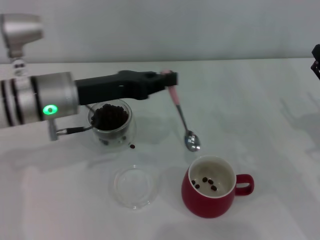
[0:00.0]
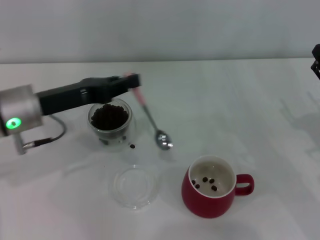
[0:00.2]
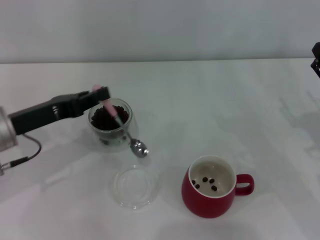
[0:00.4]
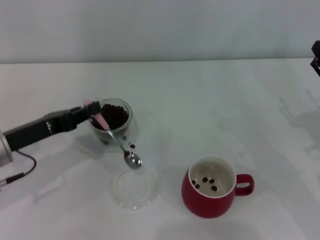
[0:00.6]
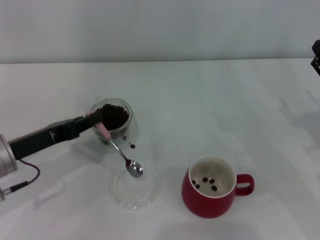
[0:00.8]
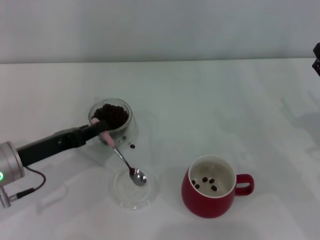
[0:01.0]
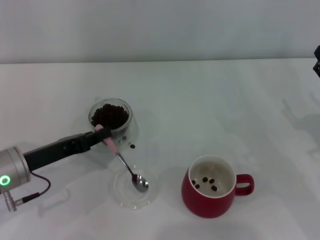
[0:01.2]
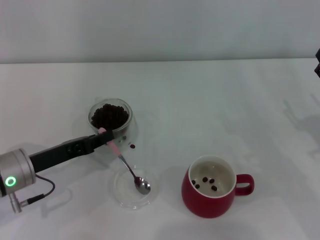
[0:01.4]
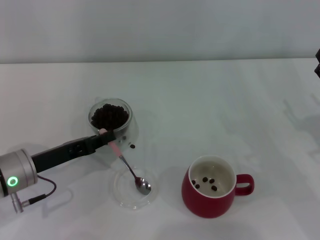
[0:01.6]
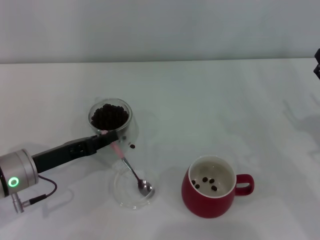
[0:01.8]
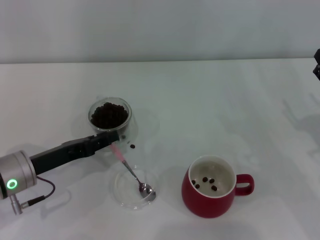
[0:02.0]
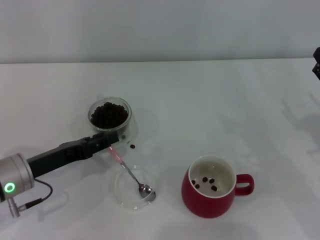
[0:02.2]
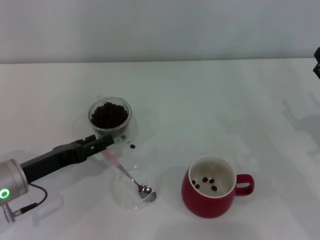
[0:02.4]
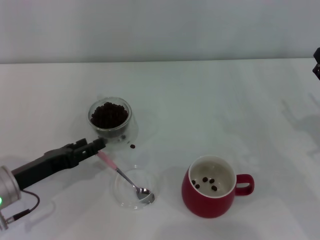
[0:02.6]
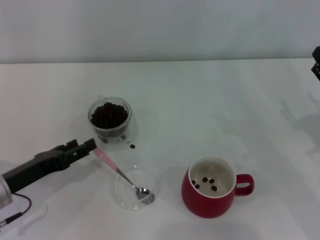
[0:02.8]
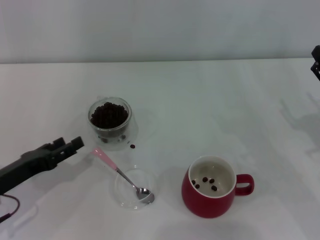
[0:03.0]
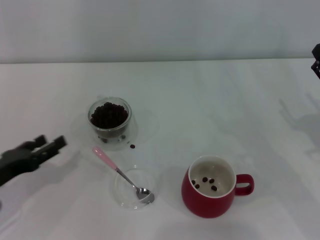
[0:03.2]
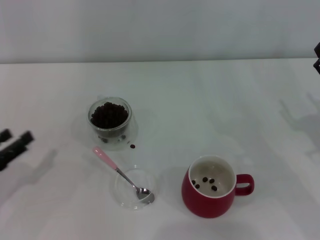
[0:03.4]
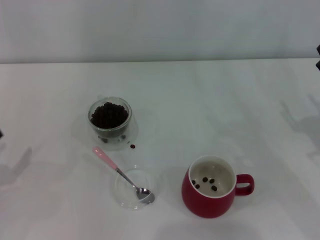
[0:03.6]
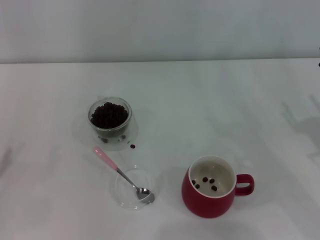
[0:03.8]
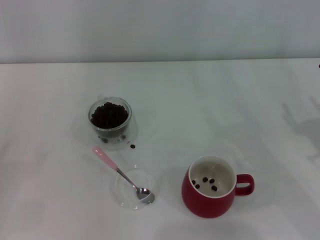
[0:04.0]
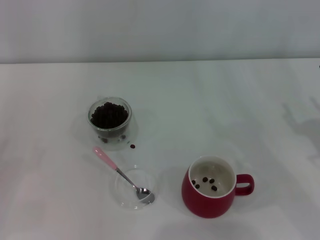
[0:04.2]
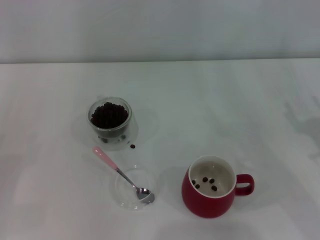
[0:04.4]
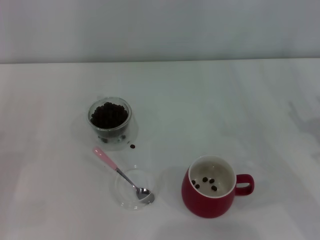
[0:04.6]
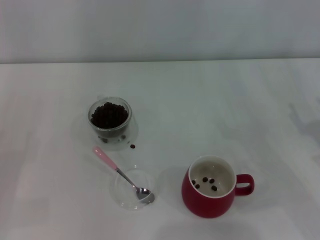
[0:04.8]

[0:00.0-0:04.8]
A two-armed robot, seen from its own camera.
Task of the whole recording: Use a pink spoon to take out the coffee beans from the glass and pour them into the red cup.
0:00.0 to 0:01.6: The left gripper travels downward, to the left and backward by some 15 cm.
0:01.6 to 0:03.2: The left gripper is displaced to the left by some 5 cm, and opens up.
0:03.2 to 0:04.8: The left gripper heads to the left, covering about 10 cm.

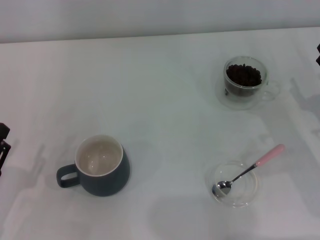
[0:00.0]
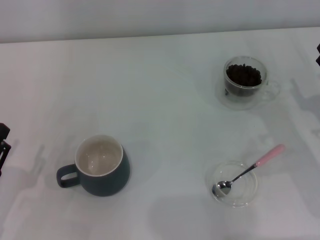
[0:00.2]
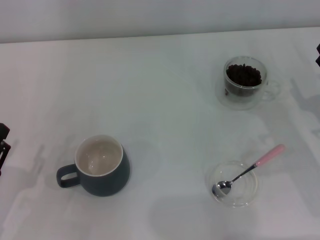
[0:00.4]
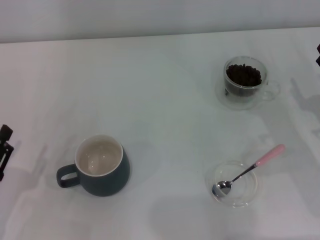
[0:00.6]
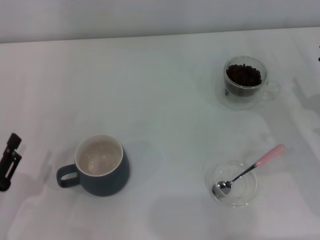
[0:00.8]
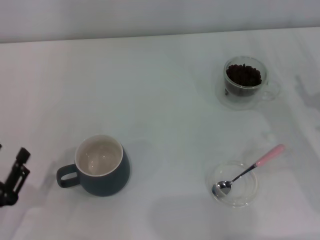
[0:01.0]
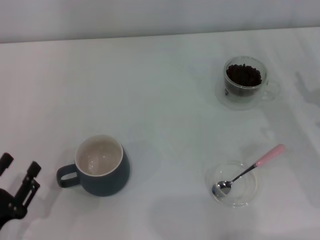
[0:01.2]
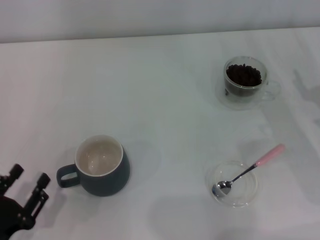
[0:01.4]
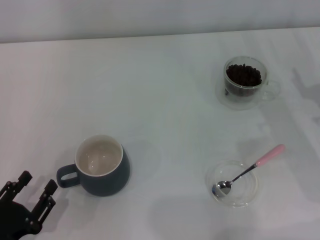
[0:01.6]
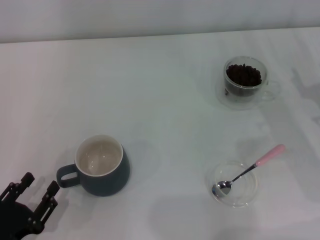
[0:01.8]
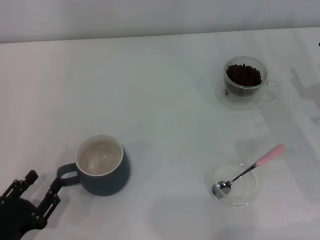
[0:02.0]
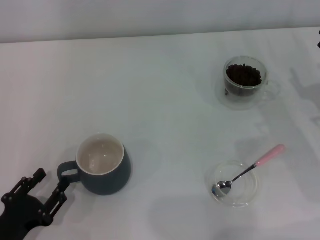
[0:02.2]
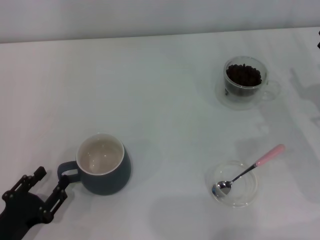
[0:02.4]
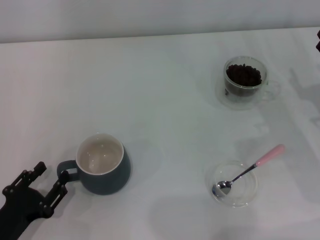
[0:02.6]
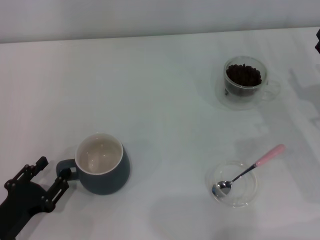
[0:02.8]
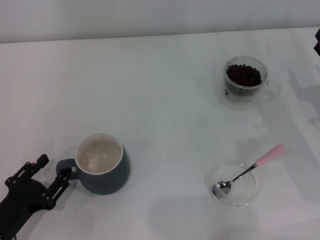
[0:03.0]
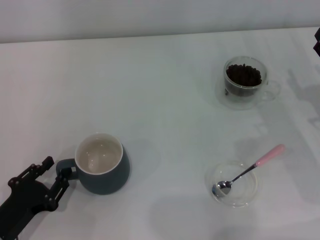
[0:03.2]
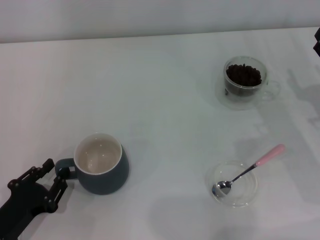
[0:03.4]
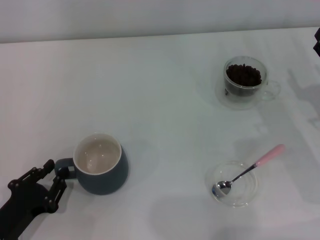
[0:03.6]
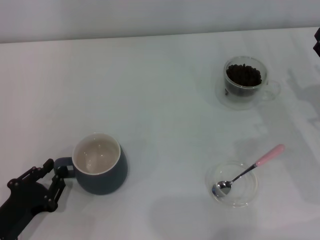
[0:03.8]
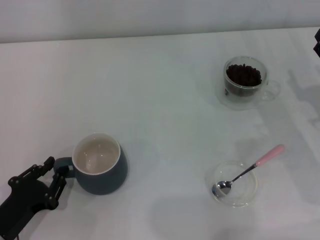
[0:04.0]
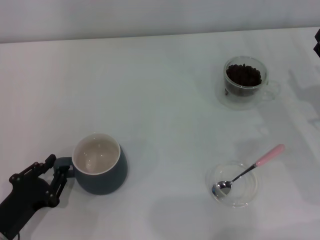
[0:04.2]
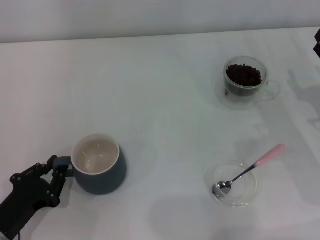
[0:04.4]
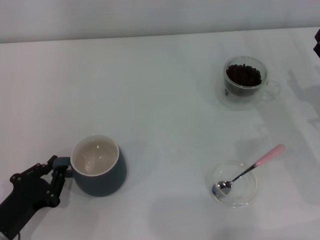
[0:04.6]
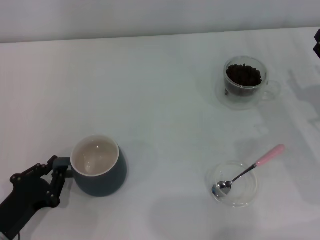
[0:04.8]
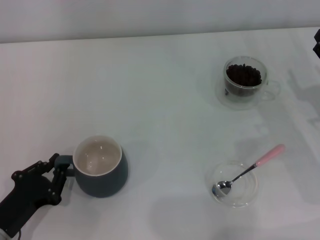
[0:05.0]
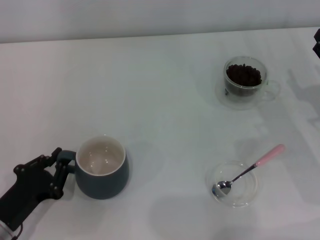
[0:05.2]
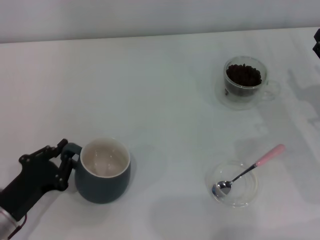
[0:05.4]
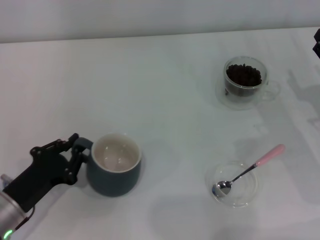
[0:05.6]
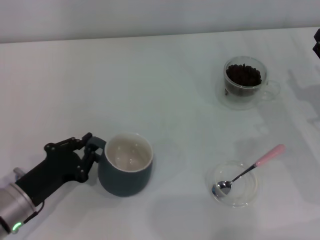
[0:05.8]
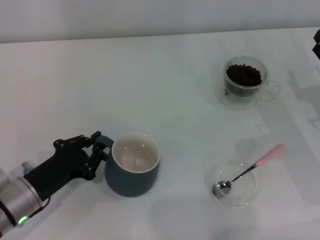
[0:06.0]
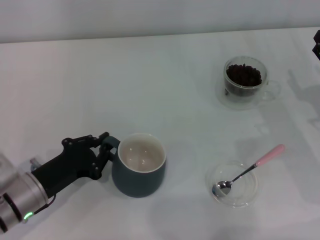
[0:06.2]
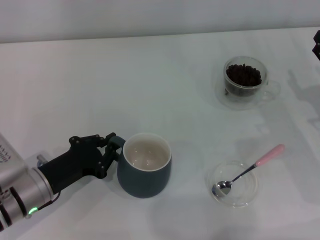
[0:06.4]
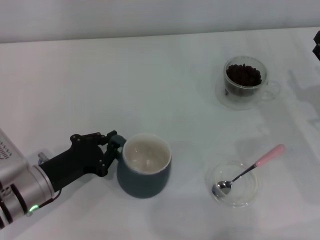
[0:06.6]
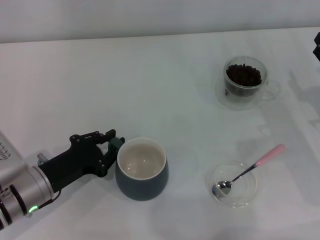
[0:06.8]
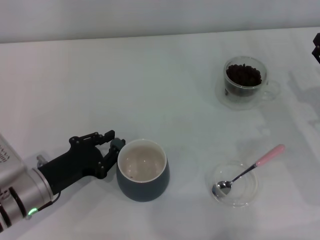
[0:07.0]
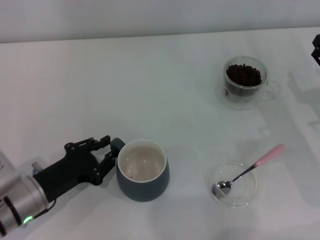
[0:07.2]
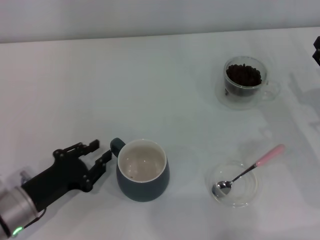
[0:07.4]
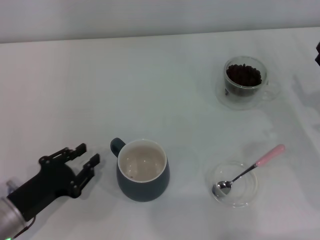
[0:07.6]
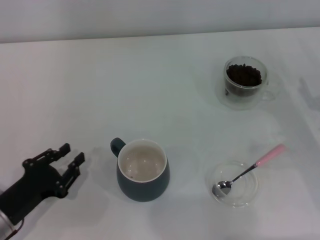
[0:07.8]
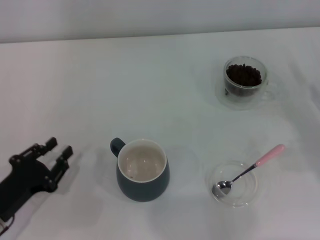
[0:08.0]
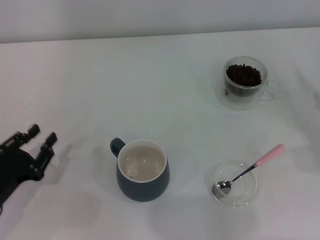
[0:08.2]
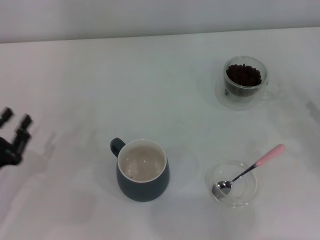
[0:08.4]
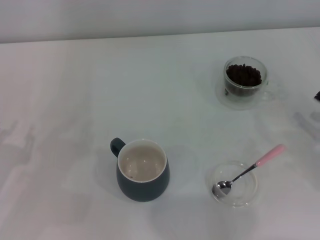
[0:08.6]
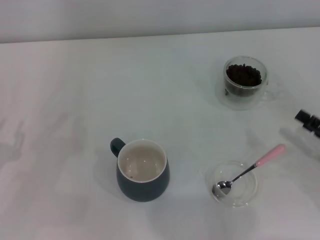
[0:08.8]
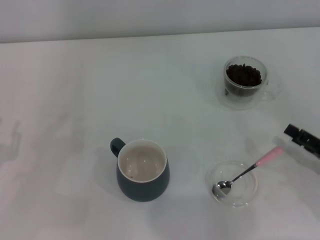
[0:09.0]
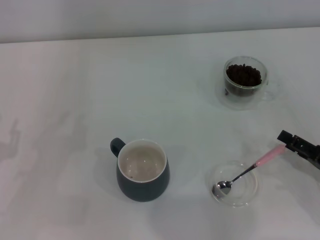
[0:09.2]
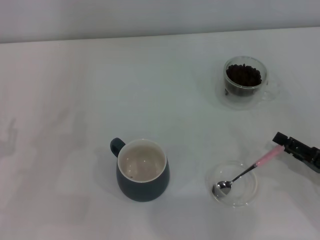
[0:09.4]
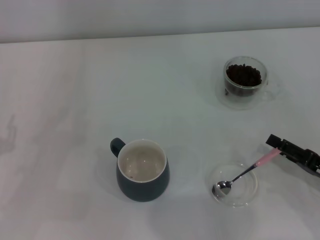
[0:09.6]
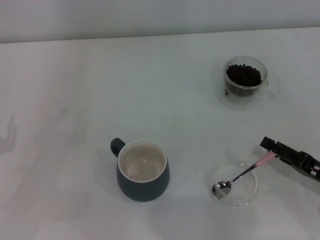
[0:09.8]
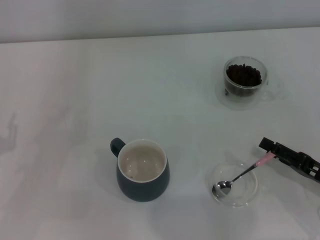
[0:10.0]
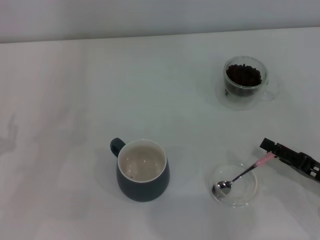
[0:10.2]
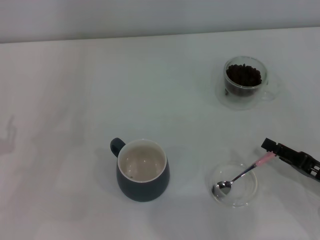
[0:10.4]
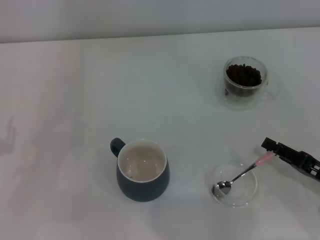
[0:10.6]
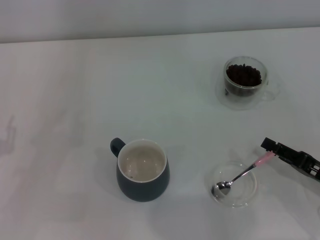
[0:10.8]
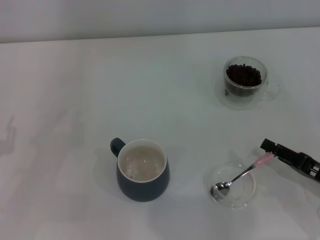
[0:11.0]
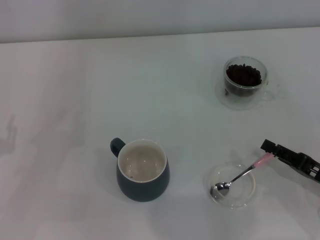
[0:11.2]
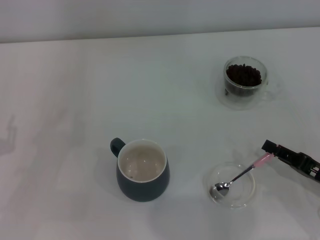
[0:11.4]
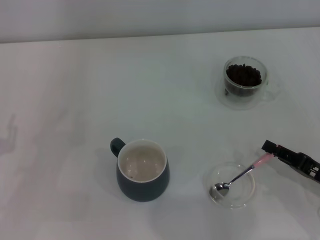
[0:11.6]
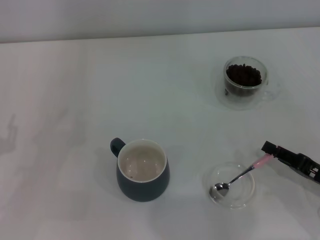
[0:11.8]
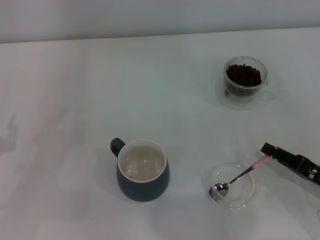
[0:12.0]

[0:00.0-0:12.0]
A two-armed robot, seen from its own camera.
Task of the whole recording: Use a pink spoon to take out the coffee beans from the glass and pour them into the gray cup.
Step, 0:00.0 to 0:07.4: Move the cup to the center of view with the left gripper.
0:00.0 to 0:01.6: The left gripper moves approximately 5 cm.
0:01.6 to 0:03.0: The grippers make only small movements.
0:03.0 to 0:04.4: The left gripper closes up.
0:04.4 to 0:06.0: The left gripper moves forward, approximately 5 cm.
0:06.0 to 0:07.6: The left gripper opens.
0:07.6 to 0:09.0: The left gripper is displaced to the left by some 10 cm, while the right gripper moves backward, some 10 cm.
0:09.0 to 0:10.4: The grippers make only small movements.
0:10.4 to 0:12.0: The right gripper closes its fingers.

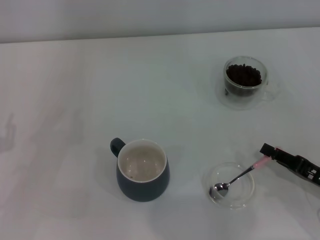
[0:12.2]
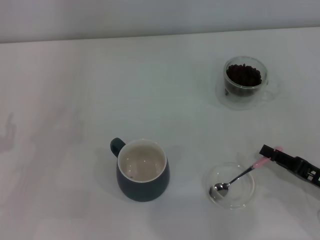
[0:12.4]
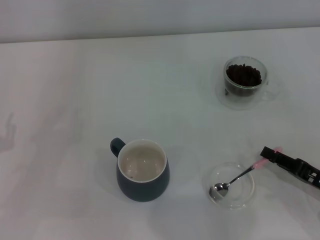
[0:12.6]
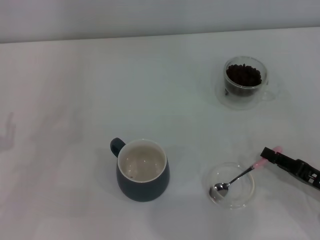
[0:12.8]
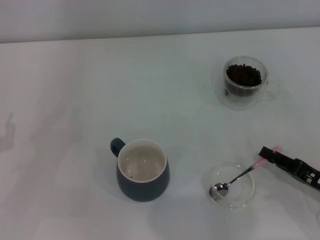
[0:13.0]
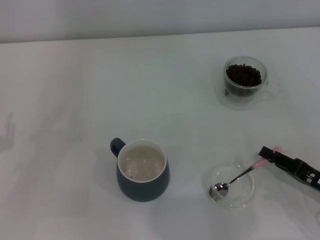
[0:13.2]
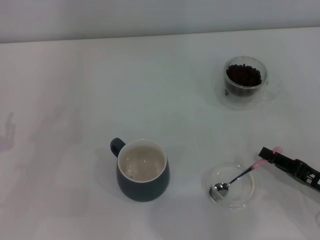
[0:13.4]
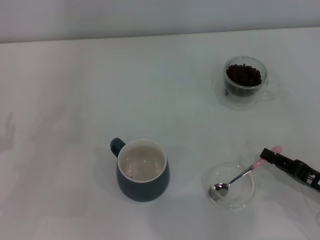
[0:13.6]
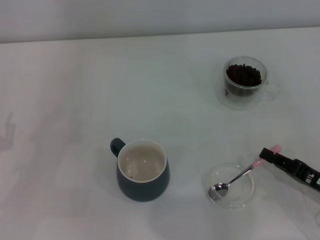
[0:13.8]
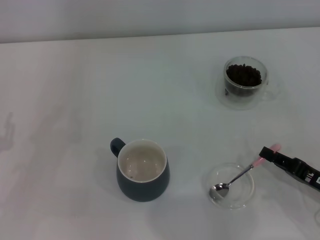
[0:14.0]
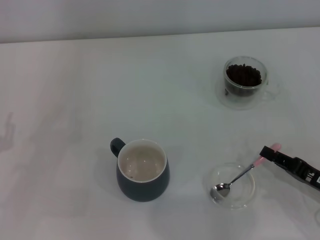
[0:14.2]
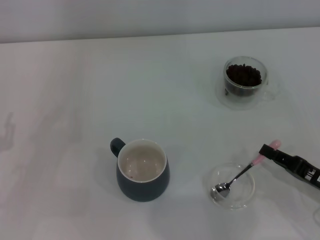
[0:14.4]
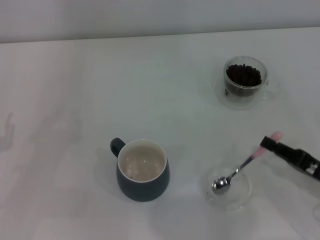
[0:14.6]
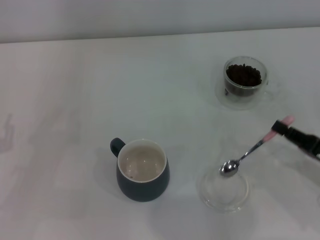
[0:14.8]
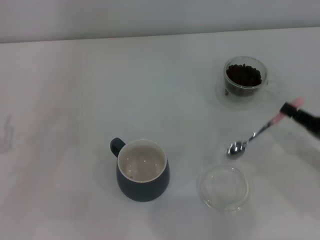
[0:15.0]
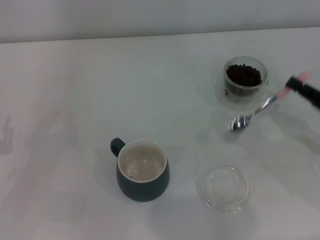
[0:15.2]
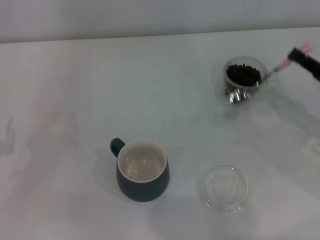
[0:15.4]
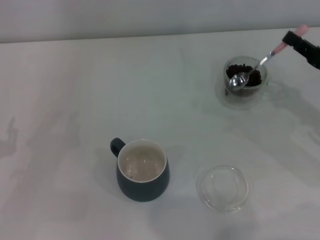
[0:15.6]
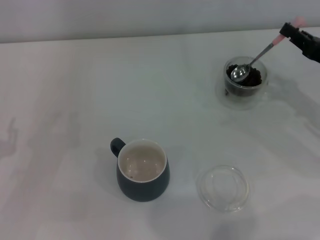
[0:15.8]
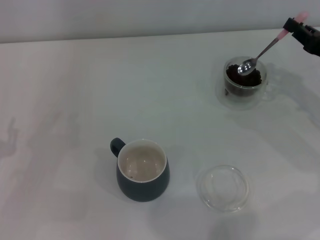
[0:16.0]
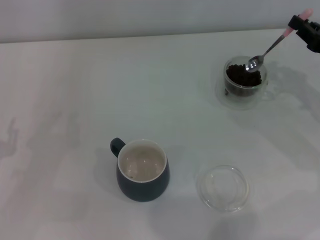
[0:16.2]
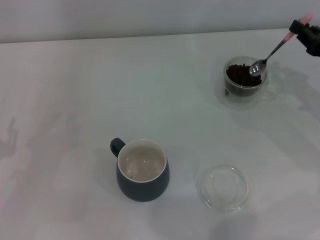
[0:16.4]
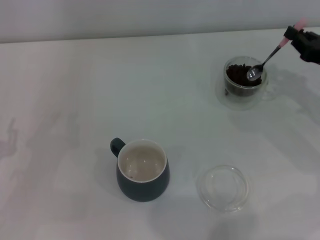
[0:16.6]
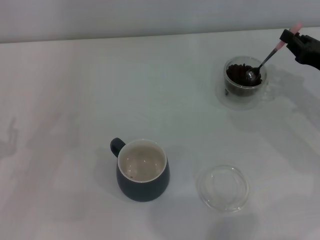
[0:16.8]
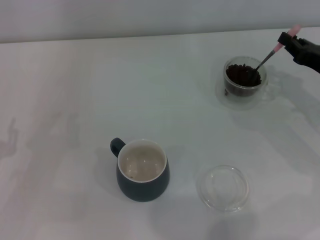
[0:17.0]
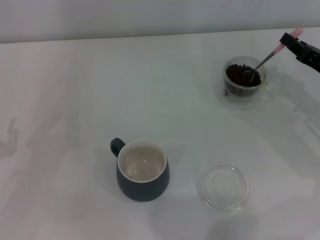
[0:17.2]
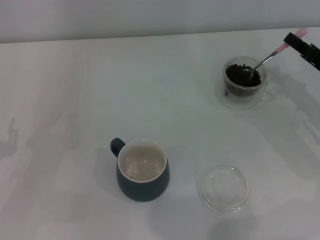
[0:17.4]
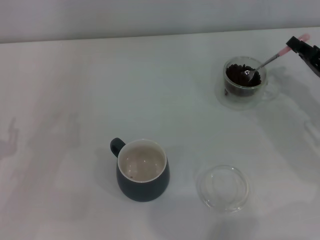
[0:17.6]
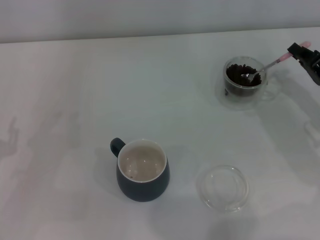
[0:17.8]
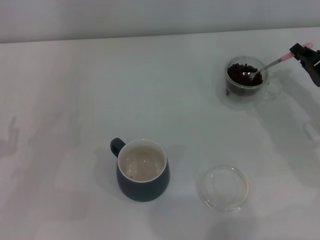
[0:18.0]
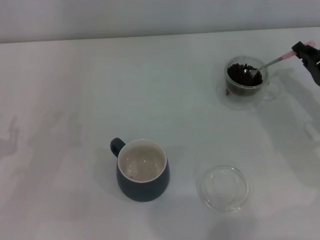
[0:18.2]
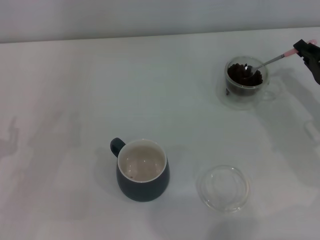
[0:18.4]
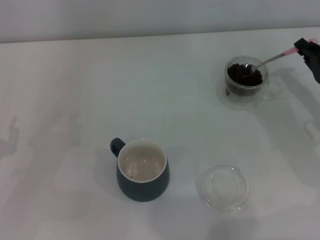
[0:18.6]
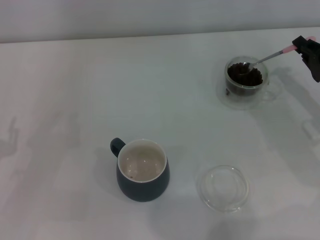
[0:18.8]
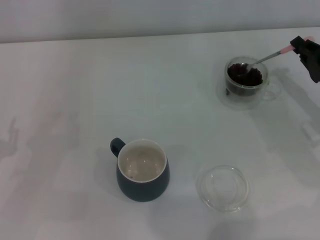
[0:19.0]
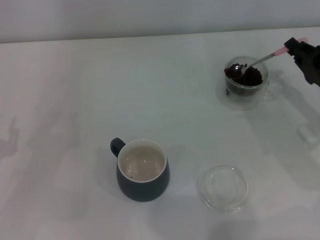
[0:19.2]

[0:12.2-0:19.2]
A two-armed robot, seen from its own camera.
Task of the whole recording: Use a pink spoon to take out the coffee beans from the glass and pour them into the gray cup.
Step, 0:12.2 to 0:14.8: Pick up the spoon with the right gripper.
0:12.2 to 0:13.6: Both grippers stay about where they are.
0:13.6 to 0:15.0: The right gripper changes place by roughly 5 cm.
0:15.0 to 0:16.4: The right gripper moves forward and upward, roughly 15 cm.
0:17.8 to 0:19.2: There are only small adjustments of the grippers.
